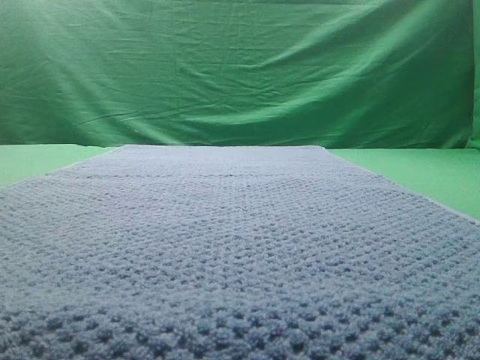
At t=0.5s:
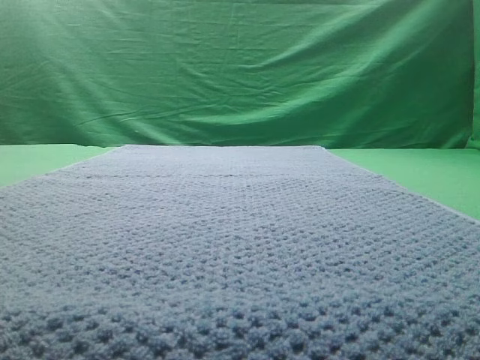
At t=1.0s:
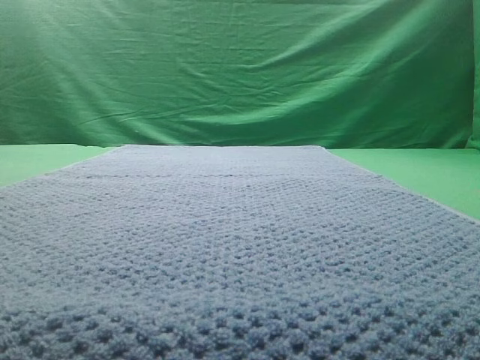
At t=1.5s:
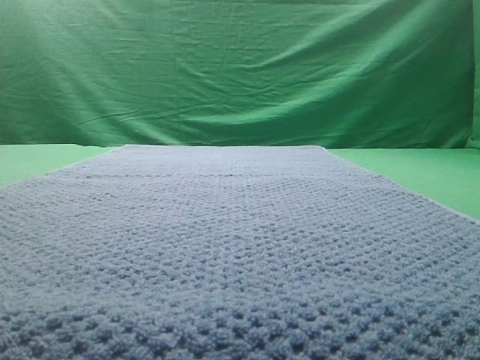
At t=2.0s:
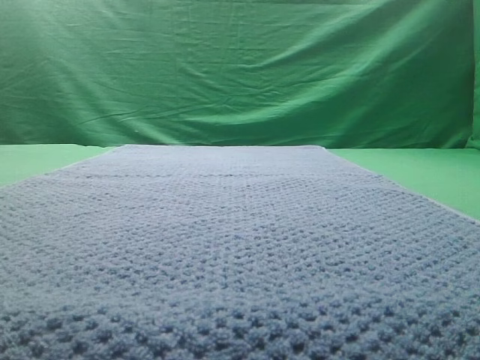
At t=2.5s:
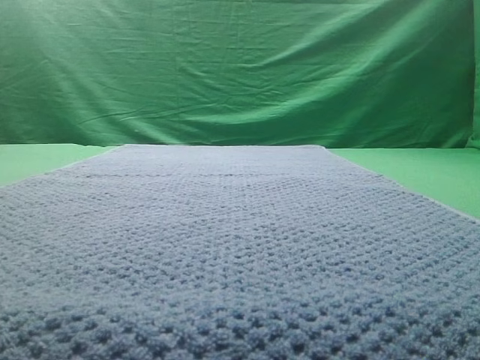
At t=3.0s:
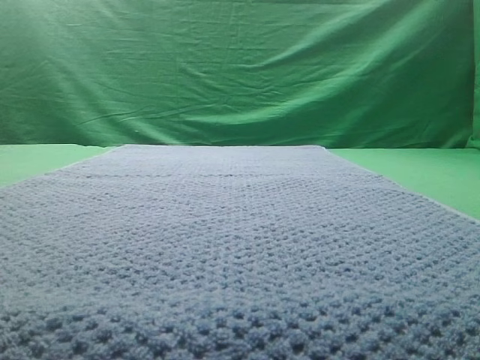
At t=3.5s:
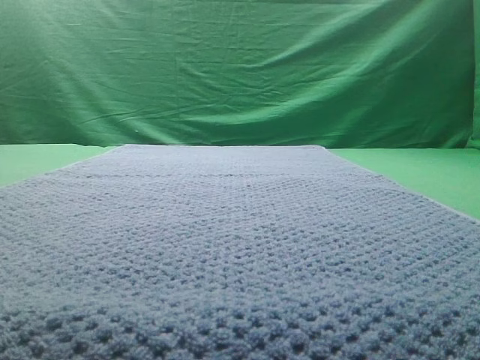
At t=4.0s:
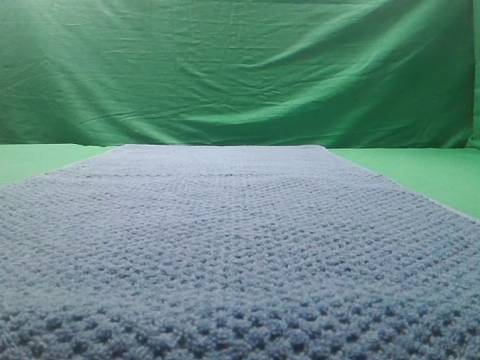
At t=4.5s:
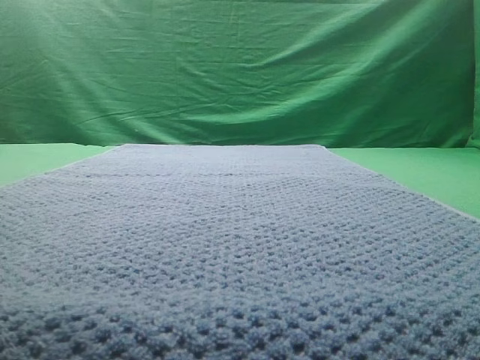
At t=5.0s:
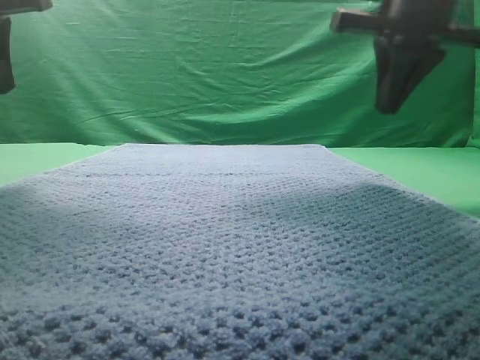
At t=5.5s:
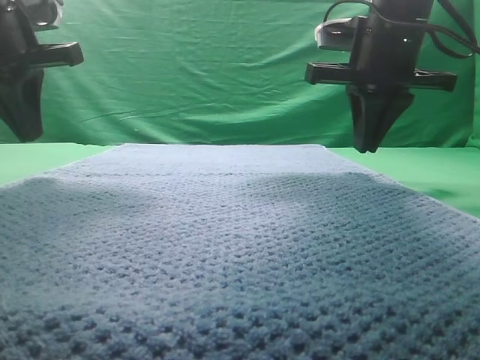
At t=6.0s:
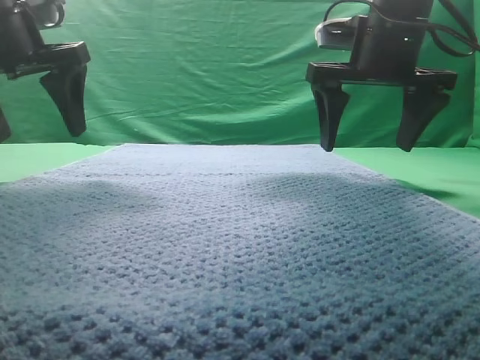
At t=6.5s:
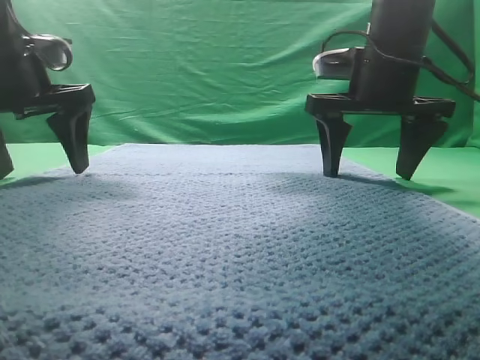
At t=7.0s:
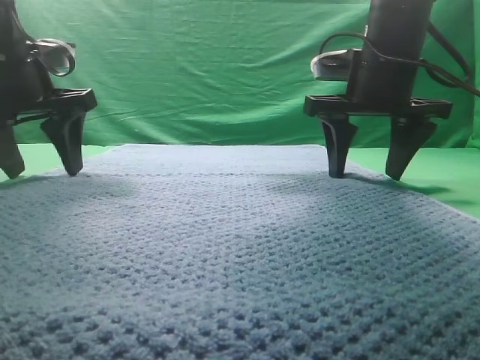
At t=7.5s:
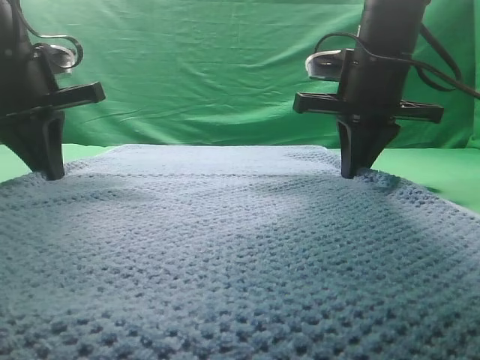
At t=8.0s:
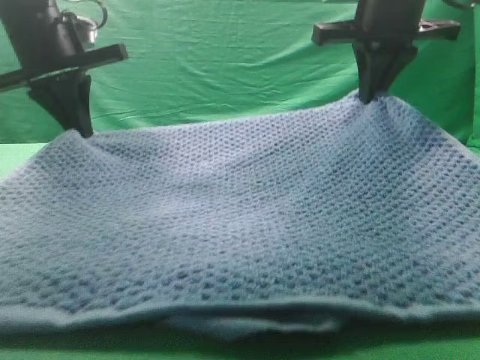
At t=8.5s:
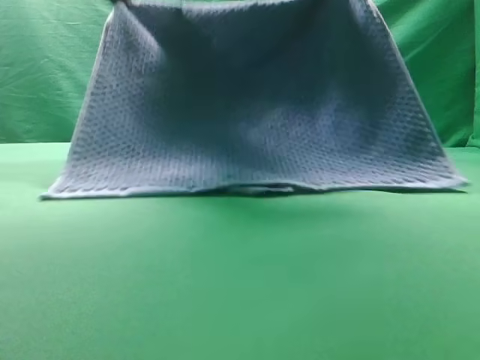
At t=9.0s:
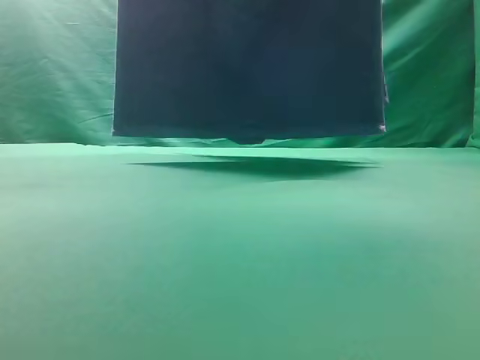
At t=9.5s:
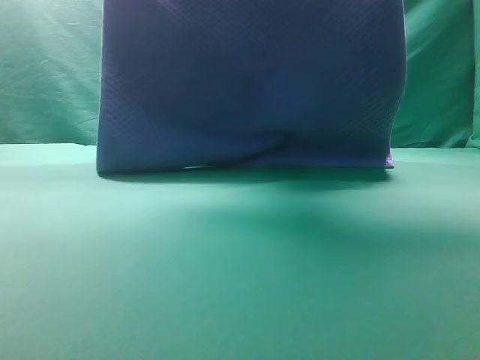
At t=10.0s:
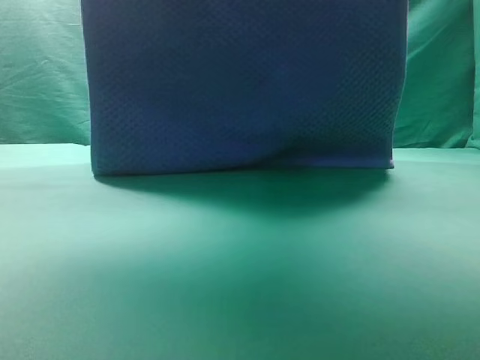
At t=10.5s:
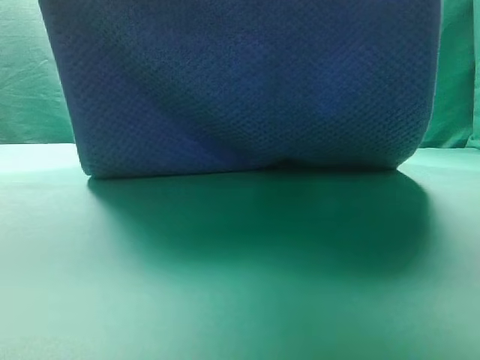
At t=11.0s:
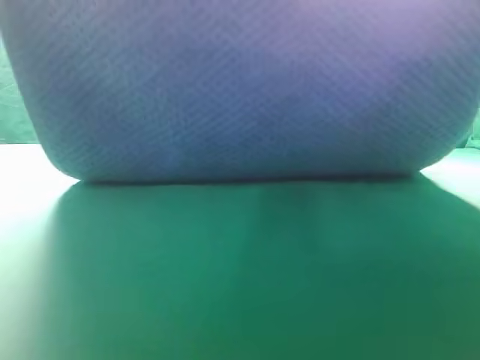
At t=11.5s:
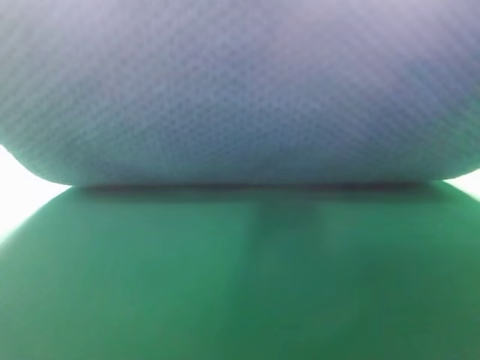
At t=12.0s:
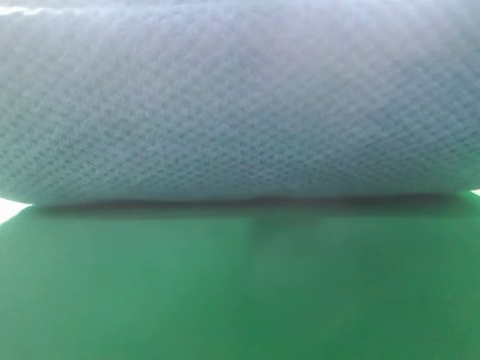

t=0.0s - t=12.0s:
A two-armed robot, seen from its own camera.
Task of the whole recording: fold the towel on the table twice.
Step, t=0.0s - t=9.0s: pick up the towel with two arm.

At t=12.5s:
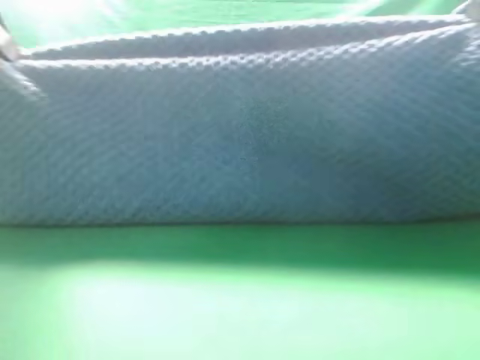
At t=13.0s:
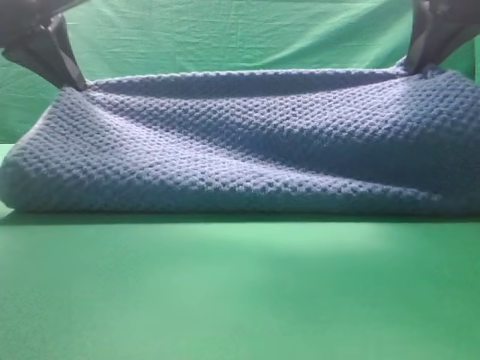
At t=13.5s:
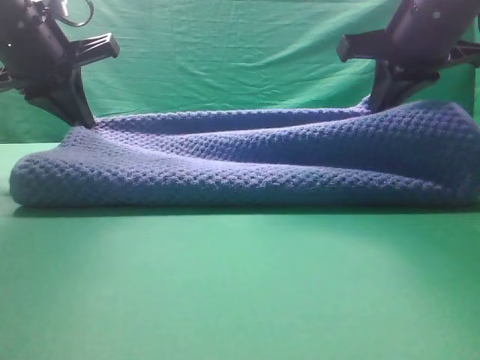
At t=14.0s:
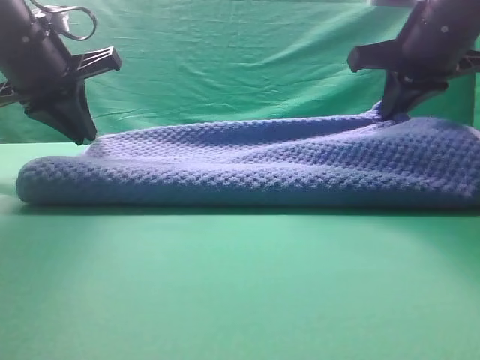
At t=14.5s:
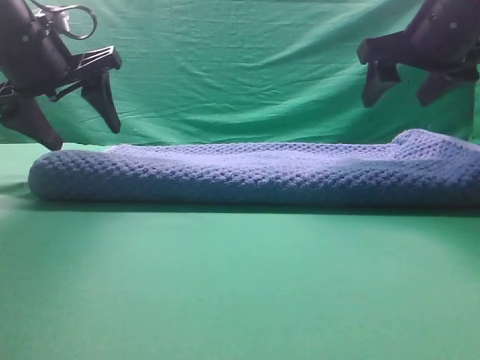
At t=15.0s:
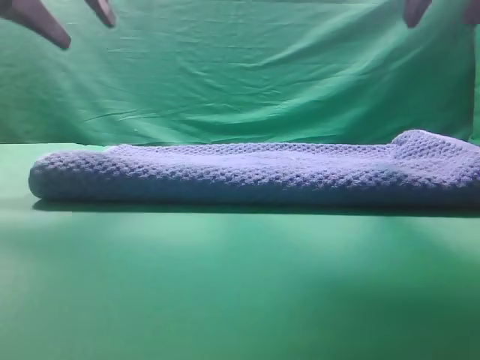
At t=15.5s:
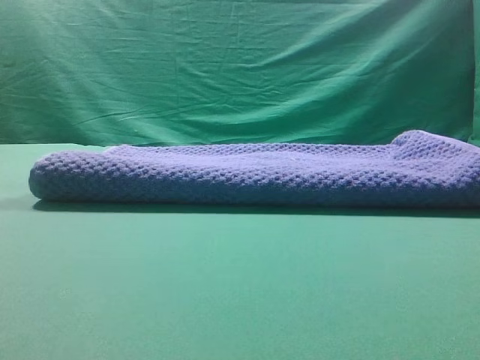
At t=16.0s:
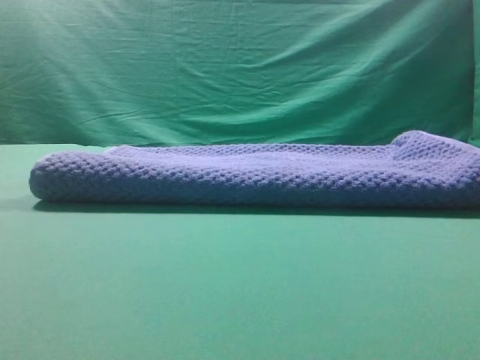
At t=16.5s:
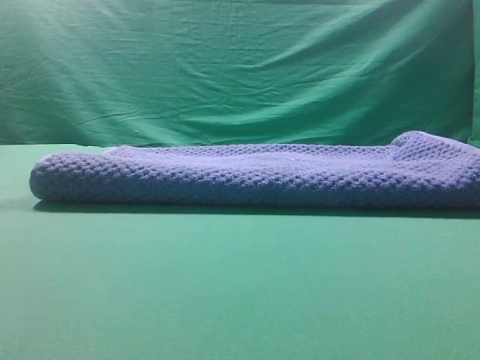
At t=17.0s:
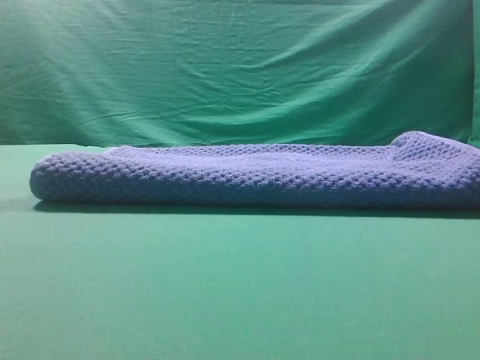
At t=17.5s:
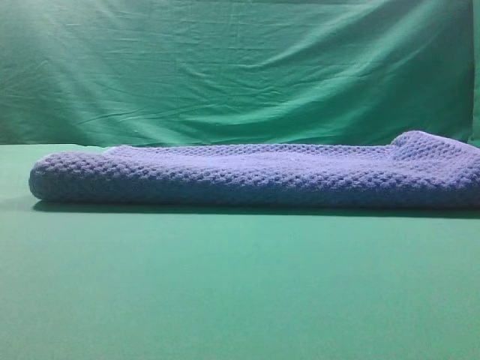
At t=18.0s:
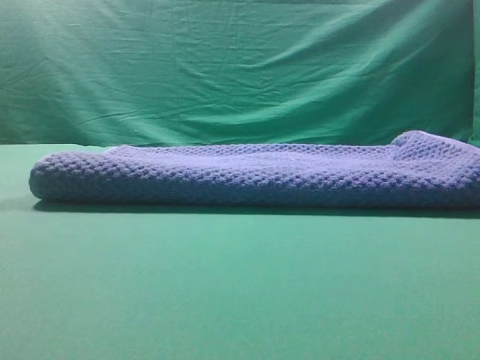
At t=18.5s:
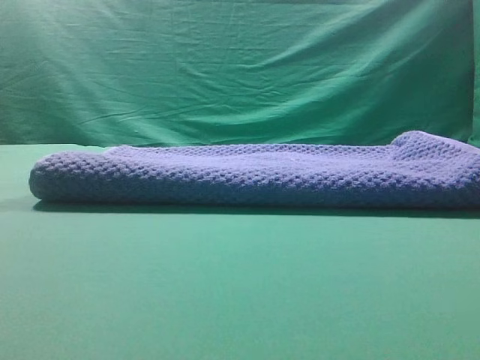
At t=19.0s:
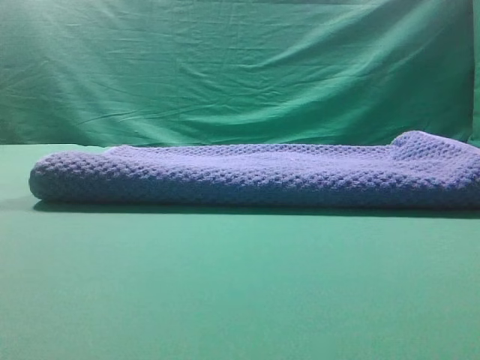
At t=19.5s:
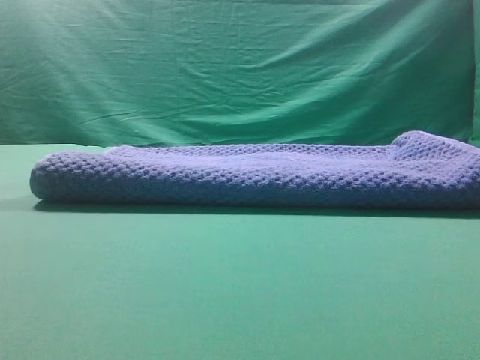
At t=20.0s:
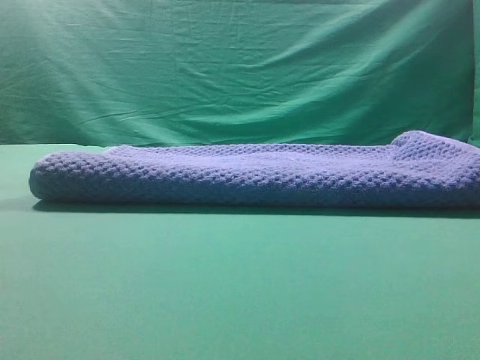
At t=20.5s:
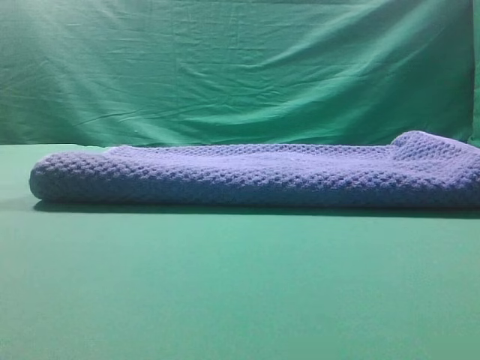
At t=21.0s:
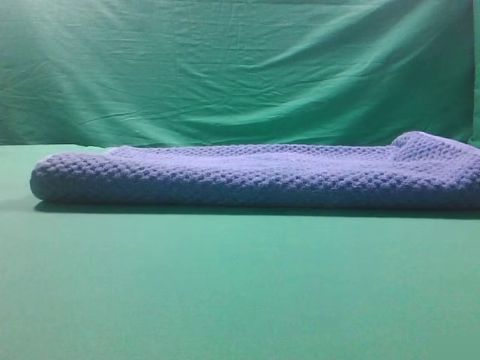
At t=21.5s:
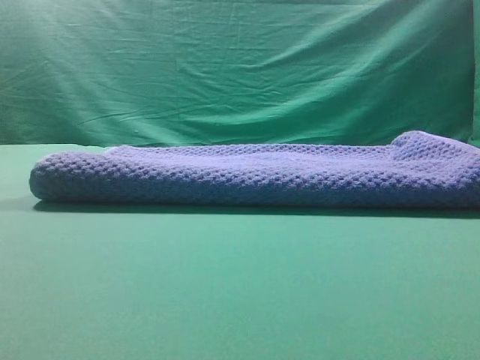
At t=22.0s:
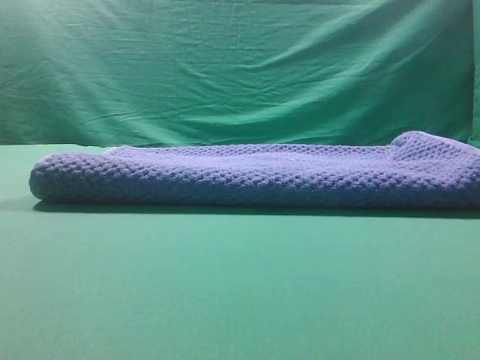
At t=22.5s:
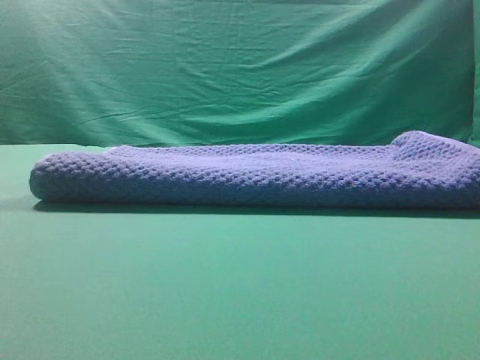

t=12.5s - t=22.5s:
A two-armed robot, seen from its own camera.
Task of the whole recording: fold the towel on the table twice.
Step, t=12.5s - t=14.5s: Fold the towel twice on the table.
